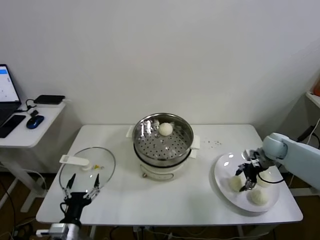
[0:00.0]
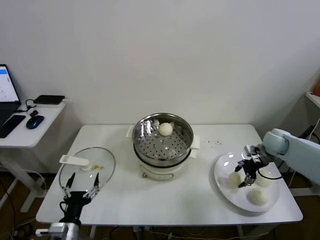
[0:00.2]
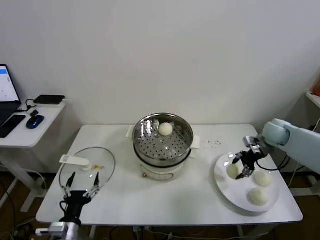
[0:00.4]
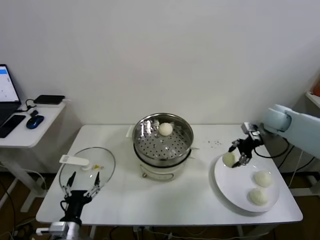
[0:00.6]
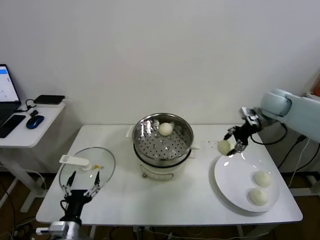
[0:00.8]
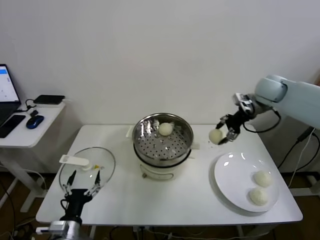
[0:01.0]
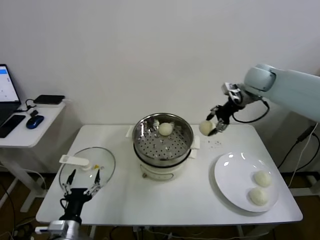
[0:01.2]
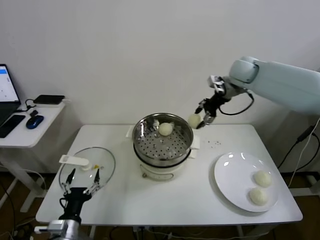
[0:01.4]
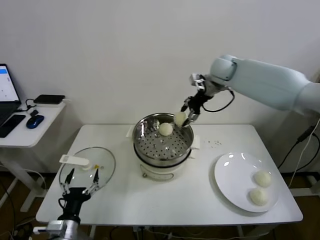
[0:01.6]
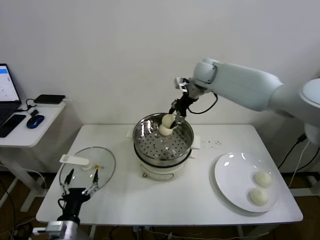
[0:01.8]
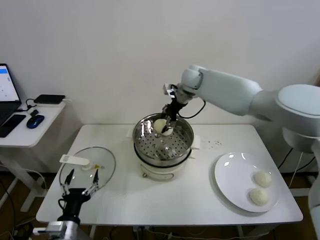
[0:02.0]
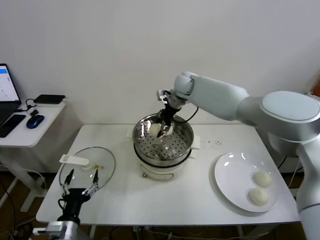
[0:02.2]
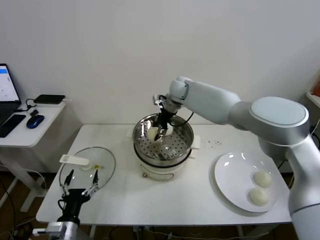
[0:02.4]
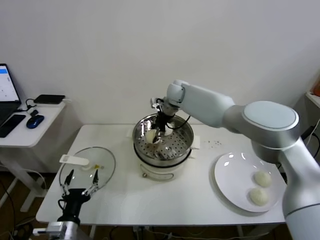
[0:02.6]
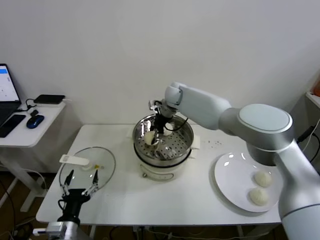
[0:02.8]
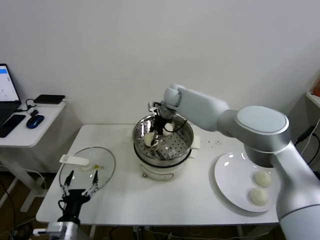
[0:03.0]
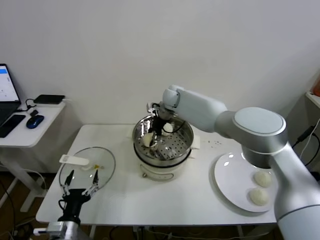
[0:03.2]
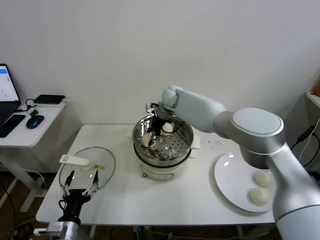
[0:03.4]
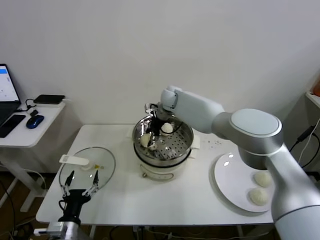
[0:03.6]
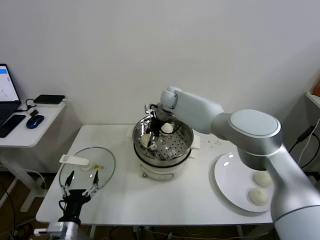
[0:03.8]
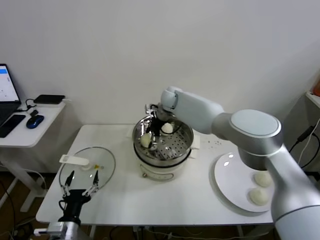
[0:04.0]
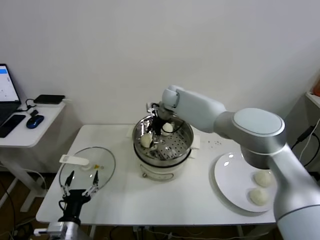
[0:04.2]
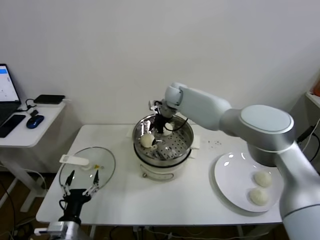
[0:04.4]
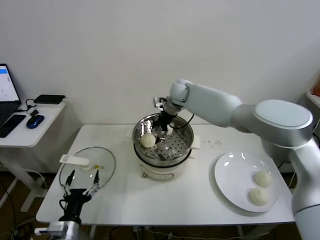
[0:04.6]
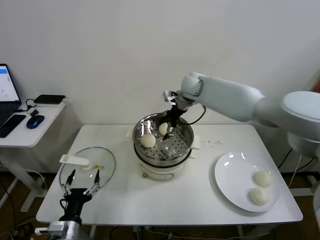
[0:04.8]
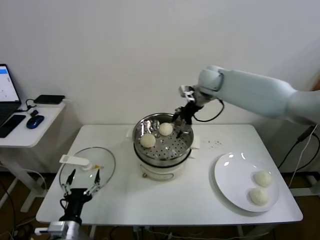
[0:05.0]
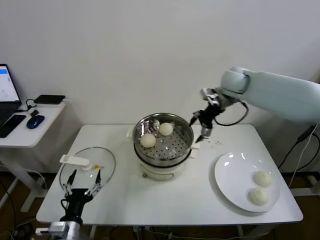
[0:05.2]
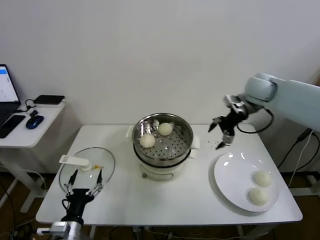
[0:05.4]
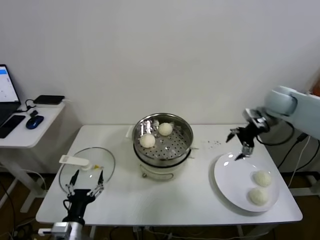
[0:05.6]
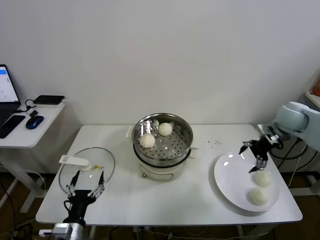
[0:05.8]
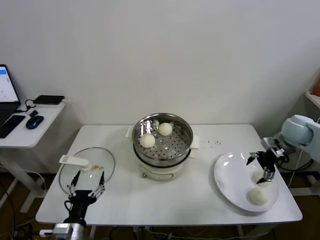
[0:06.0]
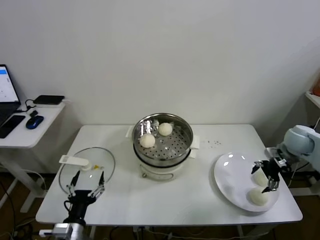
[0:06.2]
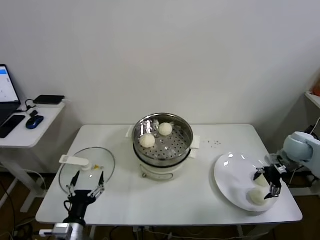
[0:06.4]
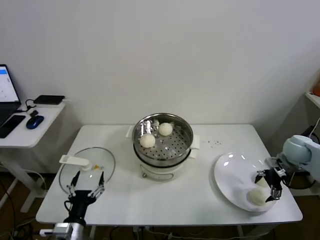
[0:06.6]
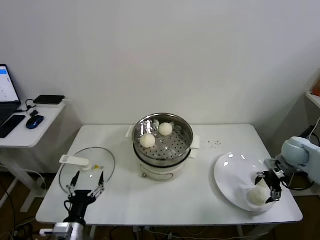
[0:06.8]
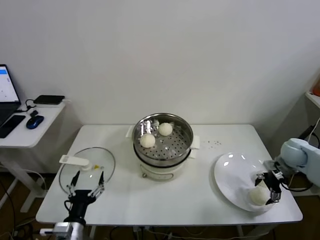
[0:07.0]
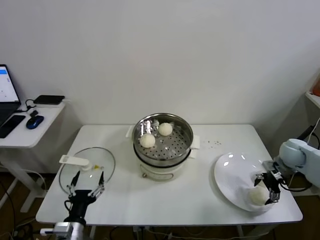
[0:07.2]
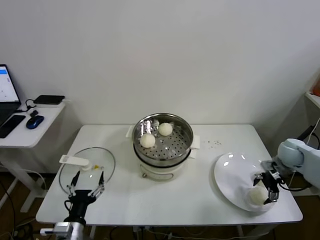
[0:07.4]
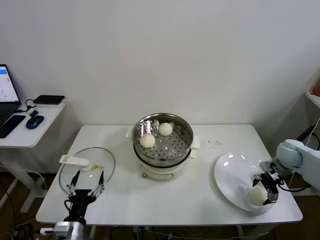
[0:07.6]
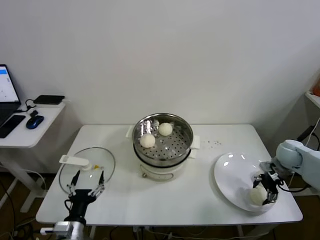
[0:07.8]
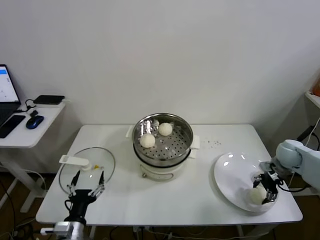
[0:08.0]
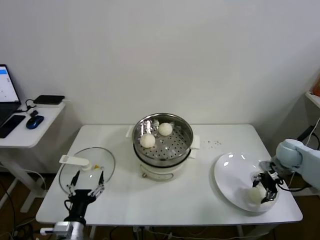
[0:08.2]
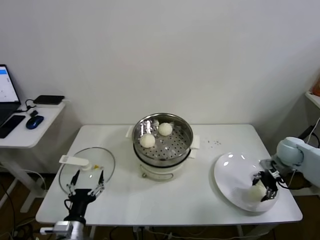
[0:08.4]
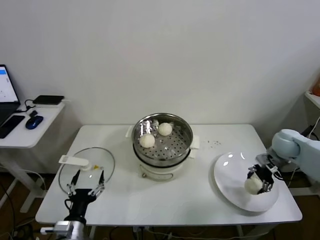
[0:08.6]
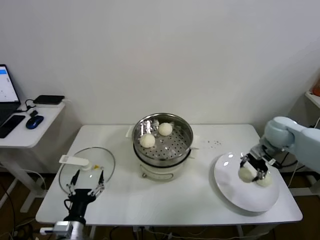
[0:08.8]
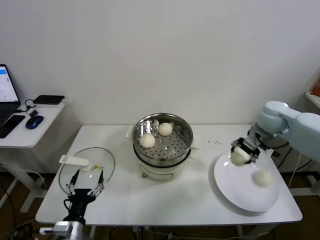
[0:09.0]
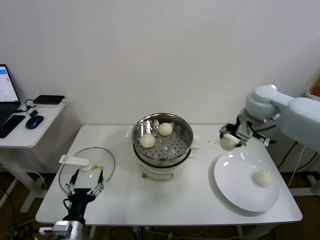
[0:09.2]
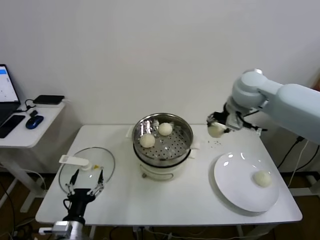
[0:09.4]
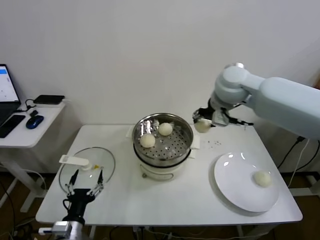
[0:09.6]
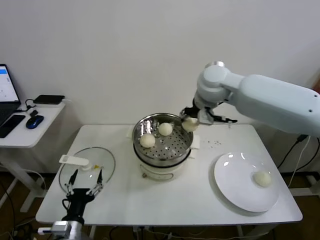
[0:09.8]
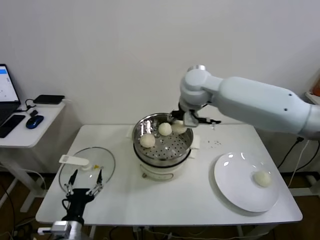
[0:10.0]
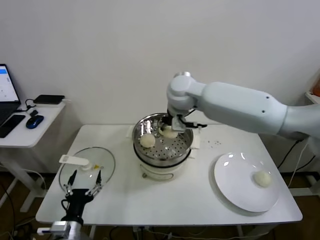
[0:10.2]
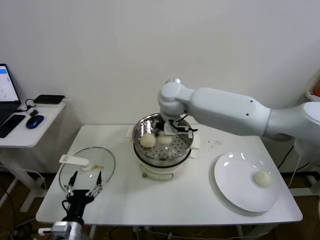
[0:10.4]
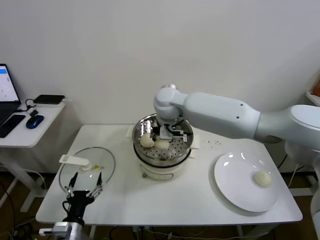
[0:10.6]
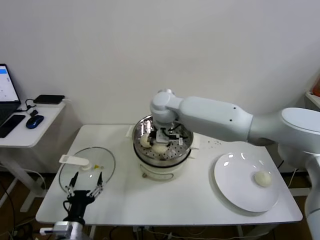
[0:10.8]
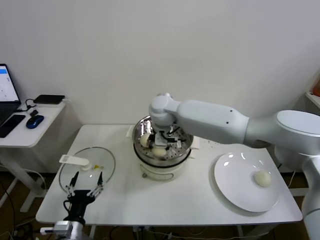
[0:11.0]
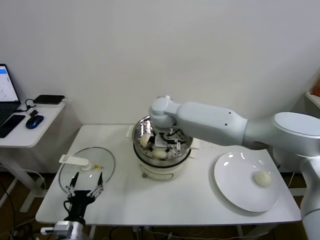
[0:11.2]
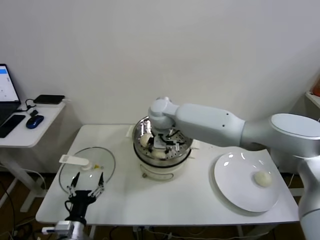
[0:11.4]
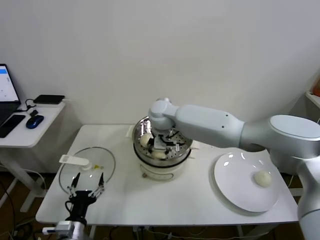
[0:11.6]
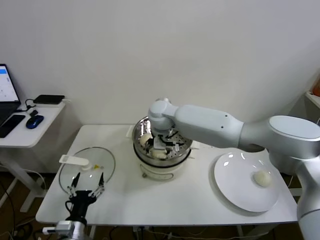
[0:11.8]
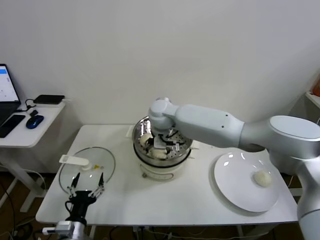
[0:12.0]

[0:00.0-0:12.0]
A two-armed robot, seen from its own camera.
Task of the whole recording: take steamed baozi put them in steamer.
Step, 0:00.0 to 0:04.4: Place the baozi on the steamer with right gripper.
Step, 0:04.6 to 0:08.0: Grasp the baozi in the plate with right gripper.
0:00.0 to 0:01.6: The right gripper shifts roughly 35 cm to the left, upward and forward.
0:01.6 to 0:03.0: The right gripper moves to the left and downward, about 20 cm.
0:03.0 to 0:04.4: The right gripper opens its fingers.
0:04.4 to 0:06.0: The right gripper is displaced to the right and backward by roughly 40 cm.
0:06.0 to 0:07.6: The right gripper heads downward, covering about 10 cm.
0:07.6 to 0:09.0: The right gripper travels upward and to the left by approximately 20 cm, and closes up.
0:09.0 to 0:10.4: The right gripper travels to the left by some 30 cm.
0:10.4 to 0:12.0: The right gripper goes approximately 5 cm downward, and opens its fingers.

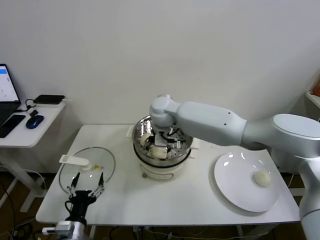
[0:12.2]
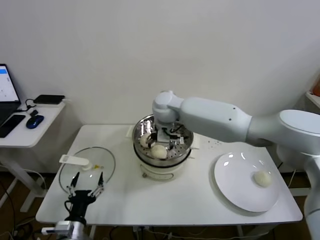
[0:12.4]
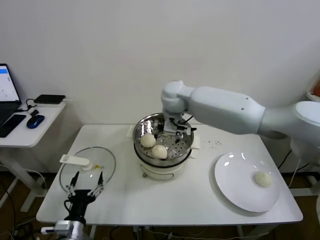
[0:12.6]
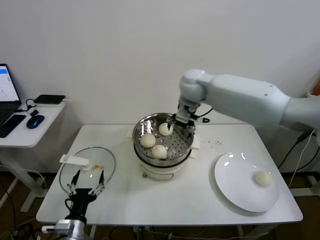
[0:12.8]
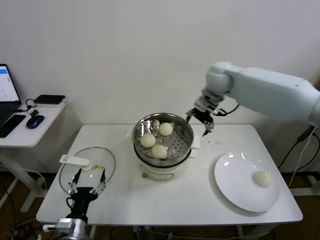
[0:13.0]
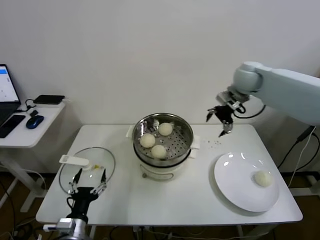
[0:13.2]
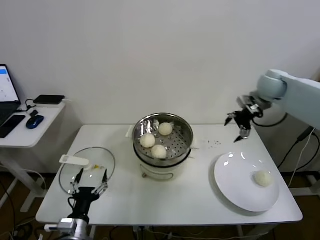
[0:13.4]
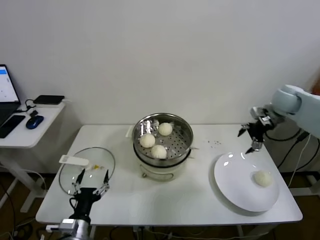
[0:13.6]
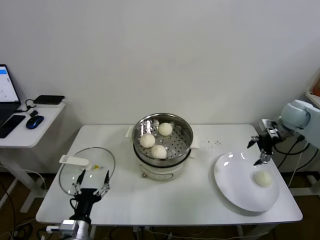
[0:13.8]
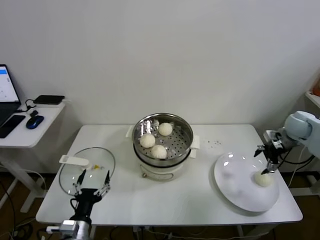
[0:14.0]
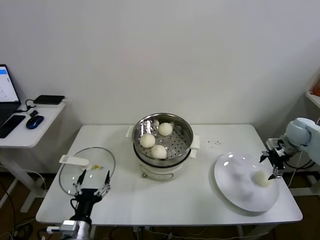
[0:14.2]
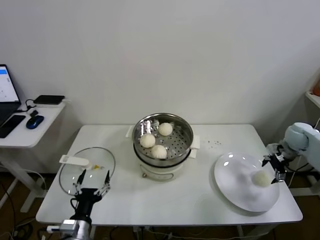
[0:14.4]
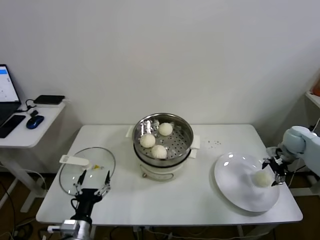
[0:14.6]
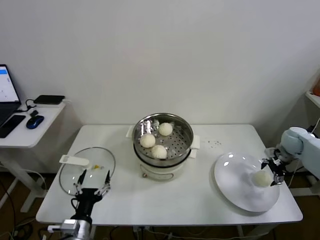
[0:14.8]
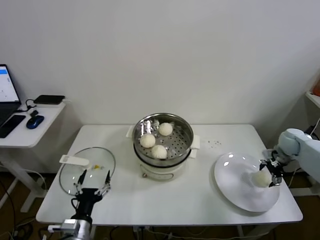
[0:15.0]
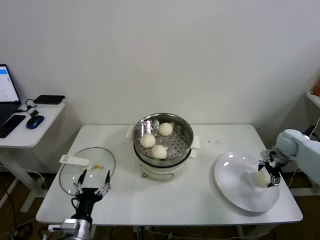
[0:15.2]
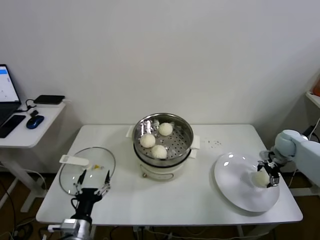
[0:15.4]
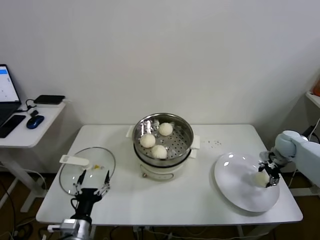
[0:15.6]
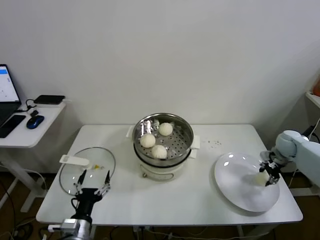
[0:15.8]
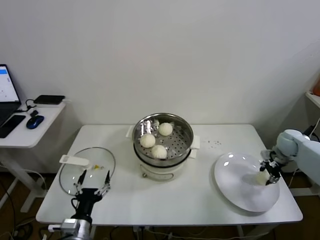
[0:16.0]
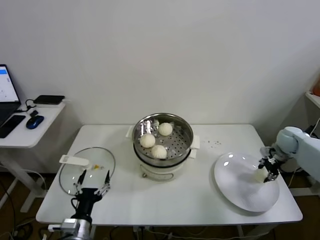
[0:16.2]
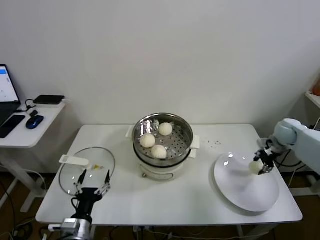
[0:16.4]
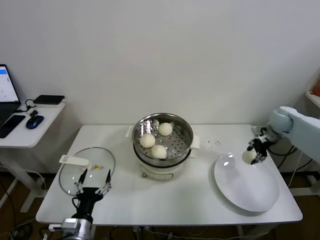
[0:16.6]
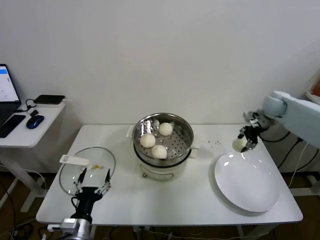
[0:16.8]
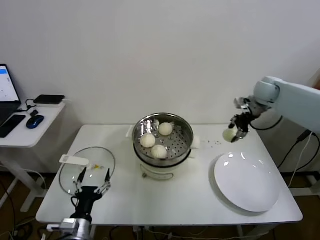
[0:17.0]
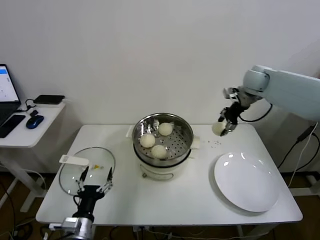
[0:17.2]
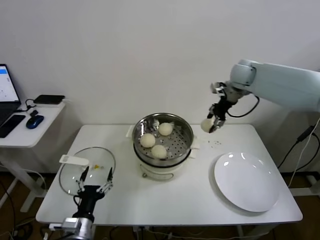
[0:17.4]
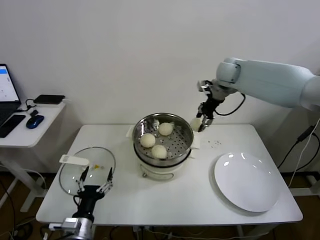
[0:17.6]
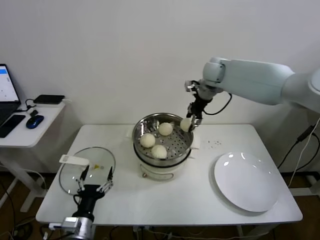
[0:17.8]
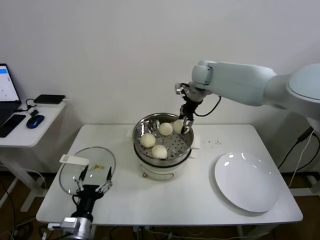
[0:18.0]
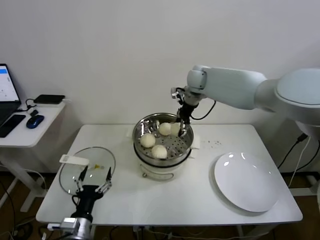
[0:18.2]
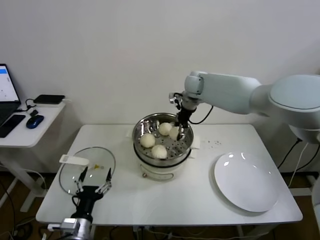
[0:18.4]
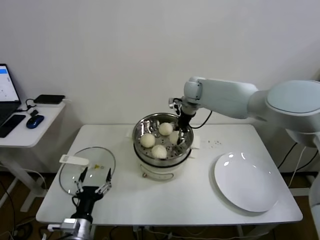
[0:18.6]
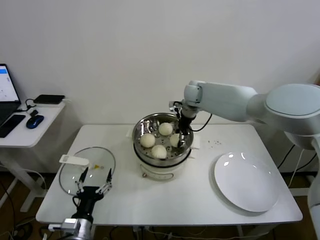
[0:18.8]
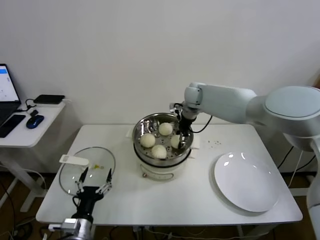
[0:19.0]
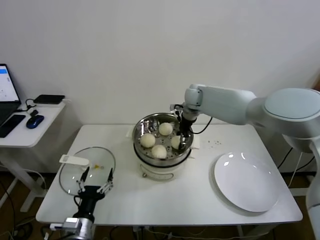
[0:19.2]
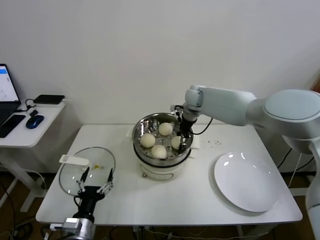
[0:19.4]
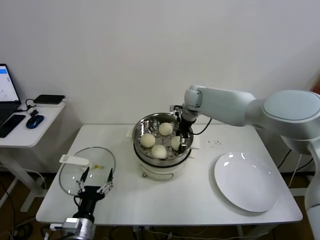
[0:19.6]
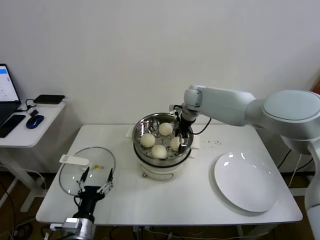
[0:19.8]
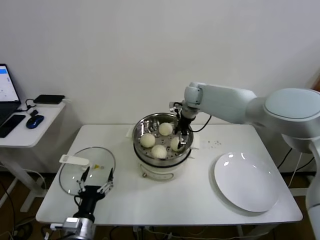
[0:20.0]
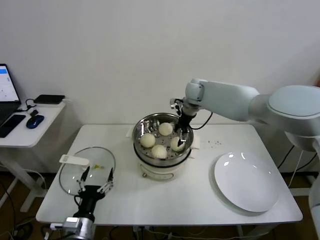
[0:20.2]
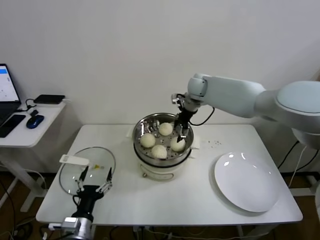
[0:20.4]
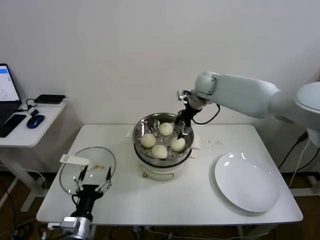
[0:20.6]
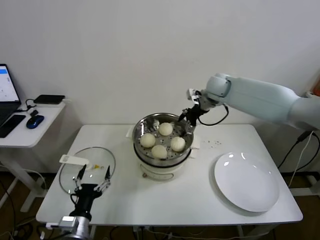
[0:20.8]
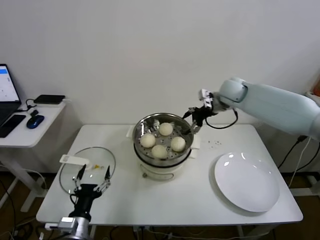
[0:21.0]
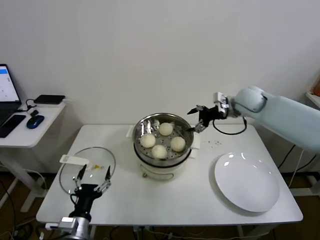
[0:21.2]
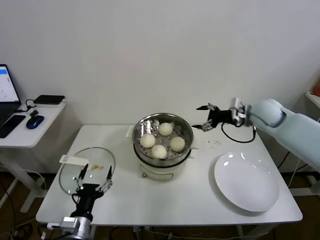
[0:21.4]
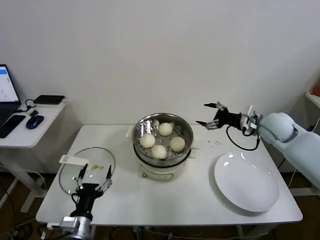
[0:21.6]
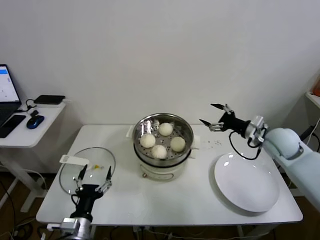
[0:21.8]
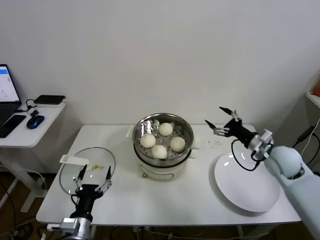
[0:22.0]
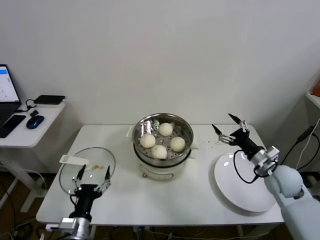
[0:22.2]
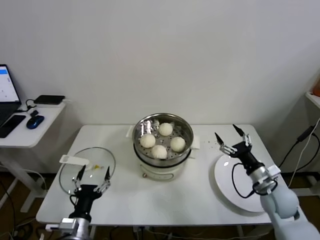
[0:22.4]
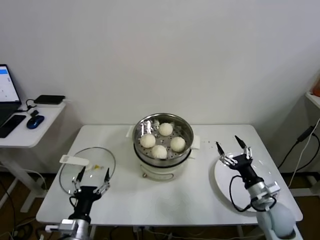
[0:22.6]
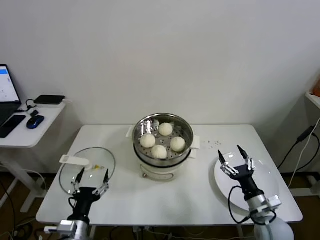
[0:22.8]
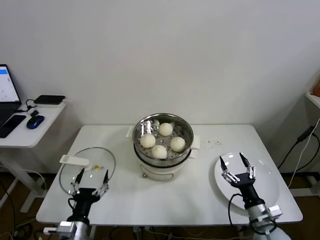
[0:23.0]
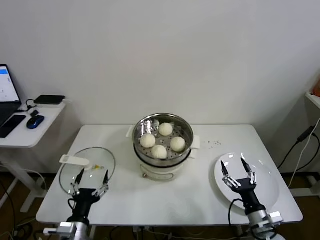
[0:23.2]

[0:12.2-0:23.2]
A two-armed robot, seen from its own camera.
Task of the whole recording: take steamed baozi put them in steamer.
Step, 0:12.4 to 0:15.6: Grasp the baozi in the plate with right gripper.
Step, 0:15.8 to 0:19.8: Place the baozi on the steamer with right gripper.
0:12.2 to 0:13.8: The right gripper goes approximately 50 cm to the right.
0:13.8 to 0:15.4: The right gripper shifts approximately 15 cm downward.
0:15.4 to 0:17.0: The right gripper goes some 25 cm upward, to the left and forward, and closes.
0:17.0 to 0:18.4: The right gripper moves to the left, approximately 25 cm.
0:18.4 to 0:20.0: The right gripper travels downward by approximately 5 cm, and opens.
0:20.0 to 0:21.6: The right gripper moves to the right and backward, approximately 25 cm.
0:21.6 to 0:23.2: The right gripper goes approximately 35 cm backward and downward.
